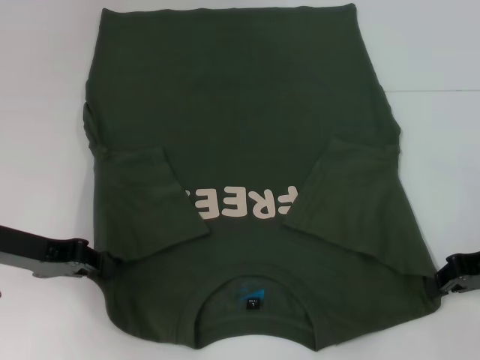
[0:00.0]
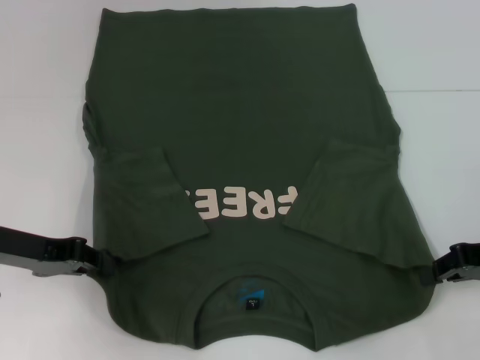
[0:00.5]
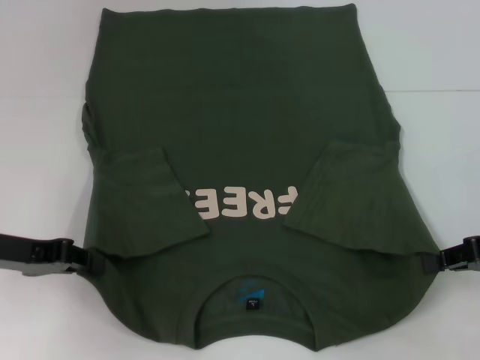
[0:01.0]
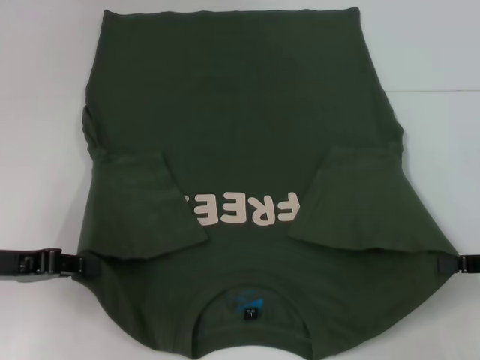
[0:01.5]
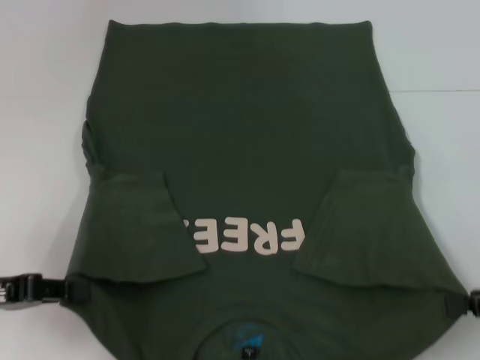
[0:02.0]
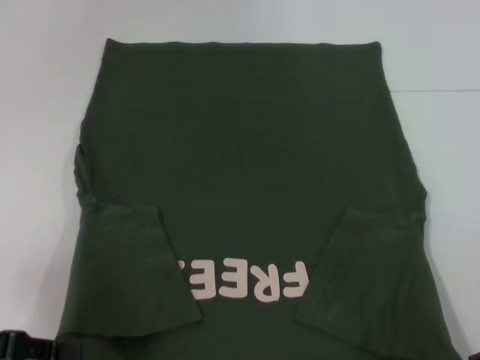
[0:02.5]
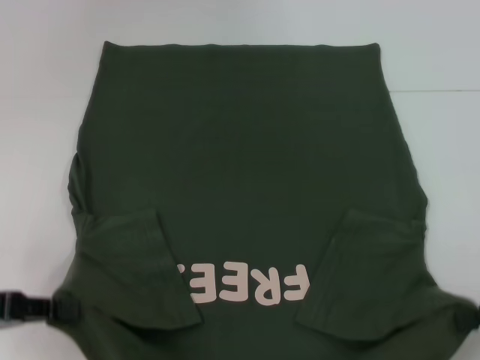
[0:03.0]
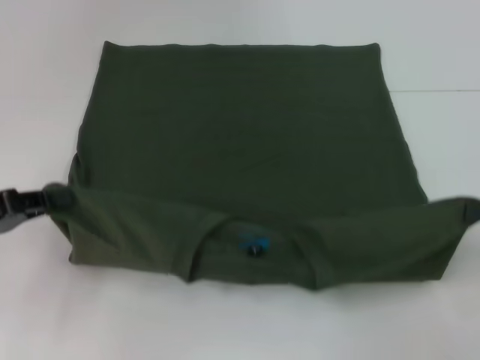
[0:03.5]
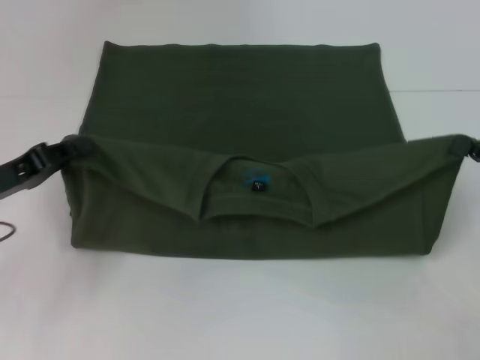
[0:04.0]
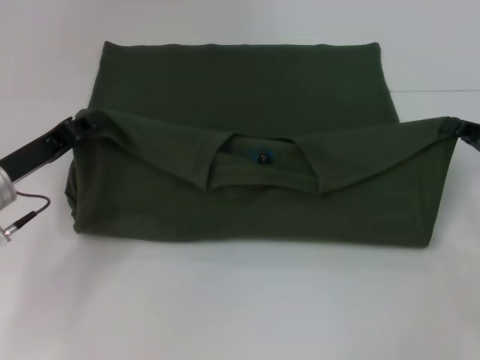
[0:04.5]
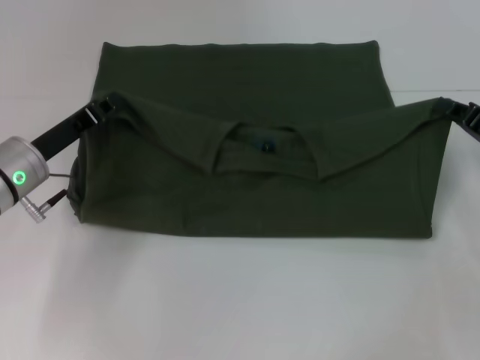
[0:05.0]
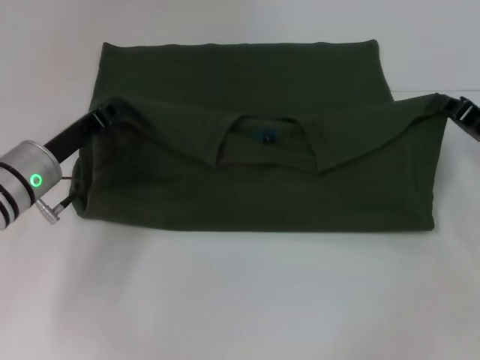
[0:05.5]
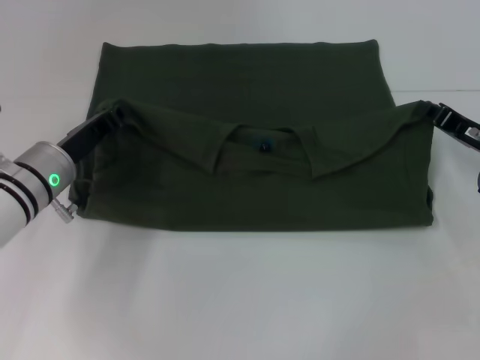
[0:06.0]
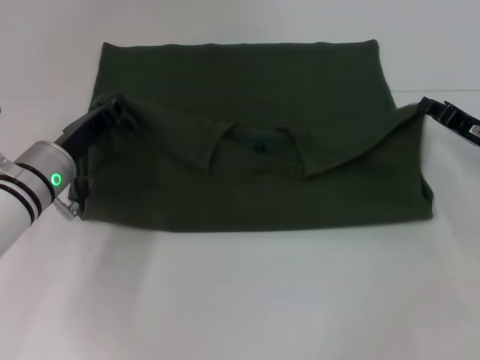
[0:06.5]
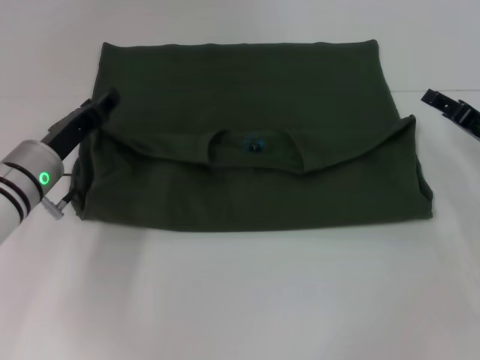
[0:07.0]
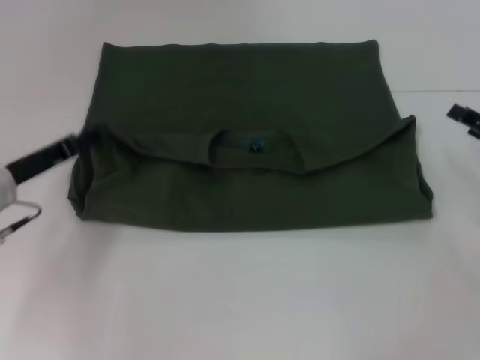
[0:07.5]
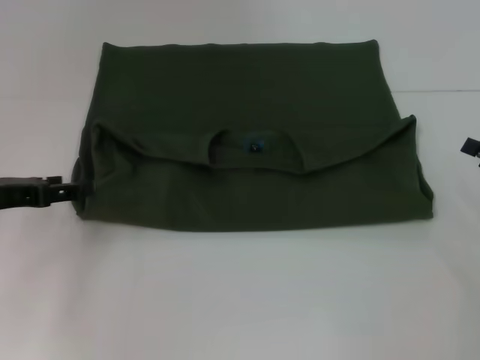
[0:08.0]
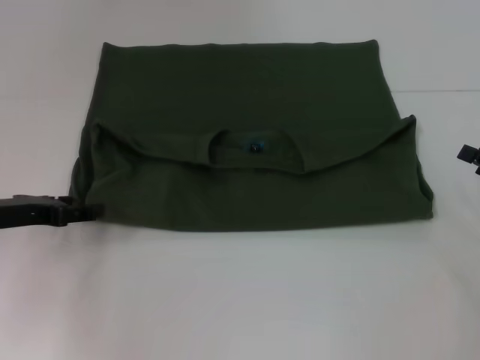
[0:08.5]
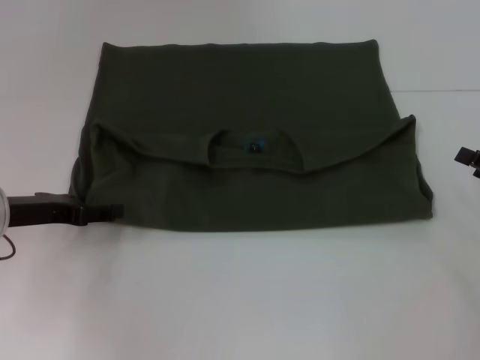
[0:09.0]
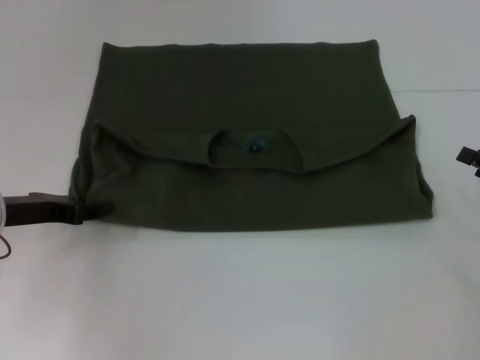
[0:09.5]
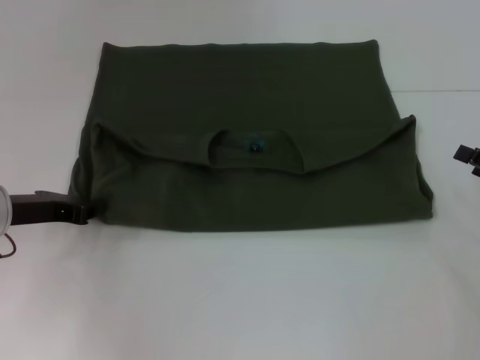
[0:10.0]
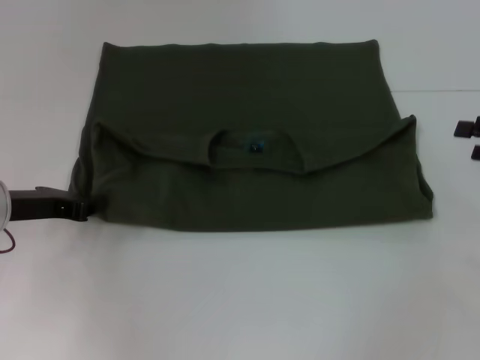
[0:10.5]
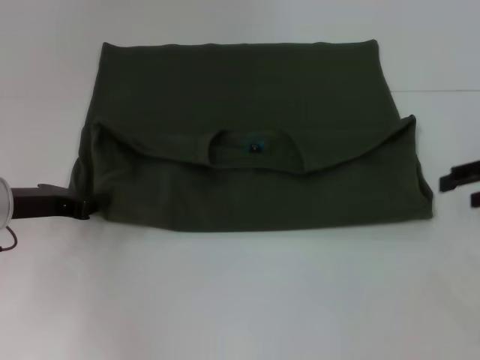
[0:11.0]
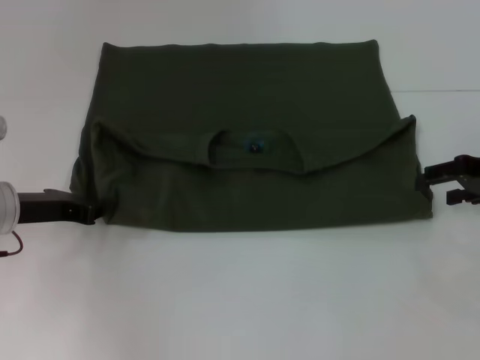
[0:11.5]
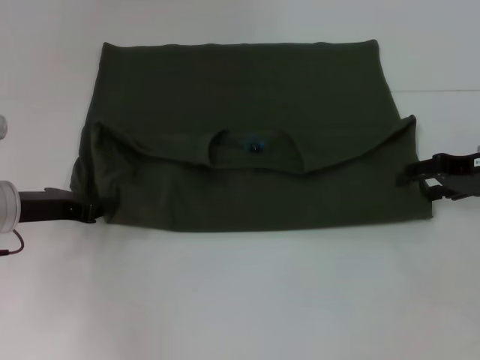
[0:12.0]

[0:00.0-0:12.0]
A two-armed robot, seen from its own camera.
Step, 0:00.5 to 0:06.5: Fold the clothes with your right hand.
0:00.0 to 0:02.0: Both grippers travel together backward, approximately 5 cm.
0:02.0 to 0:04.0: Both grippers travel together forward, approximately 5 cm.
0:04.0 to 0:06.0: The left gripper is displaced to the right and forward by some 10 cm. Meanwhile the right gripper travels forward and to the left by some 10 cm.
0:06.0 to 0:08.0: The left gripper travels to the left, upward and backward by some 10 cm, and opens up, while the right gripper shifts approximately 10 cm to the right and backward, and opens.
0:08.0 to 0:10.0: The left gripper closes up.
0:10.0 to 0:12.0: The right gripper shifts some 10 cm forward, to the left and upward.

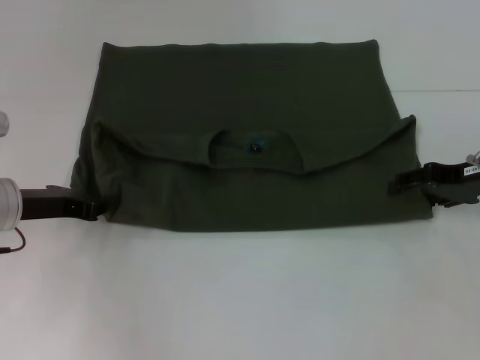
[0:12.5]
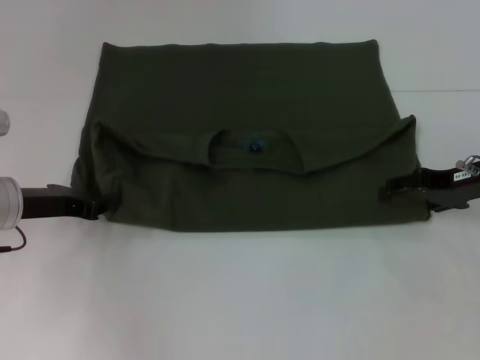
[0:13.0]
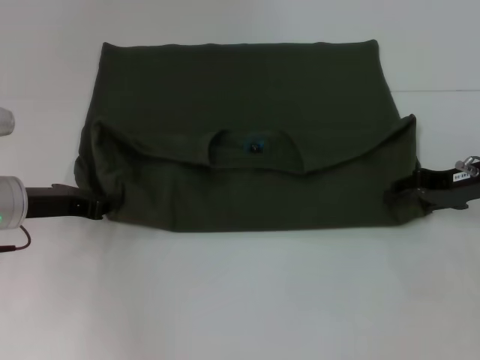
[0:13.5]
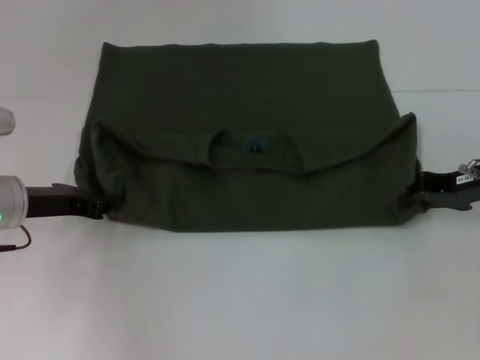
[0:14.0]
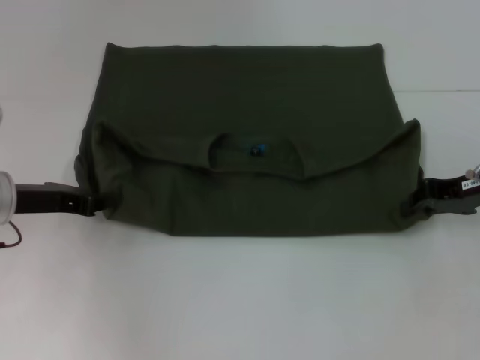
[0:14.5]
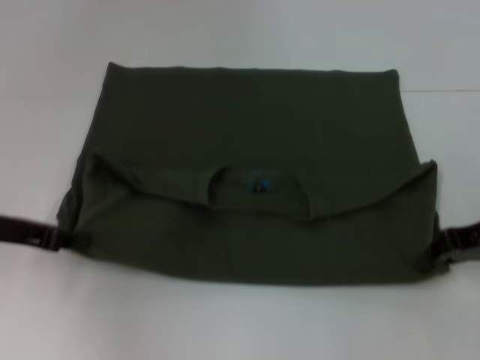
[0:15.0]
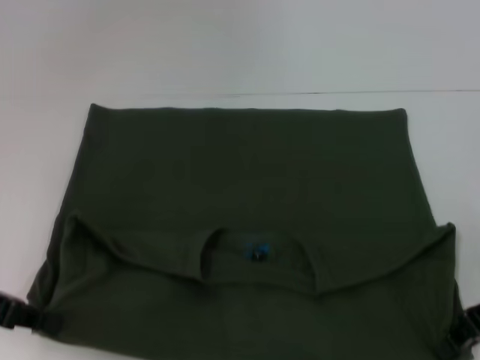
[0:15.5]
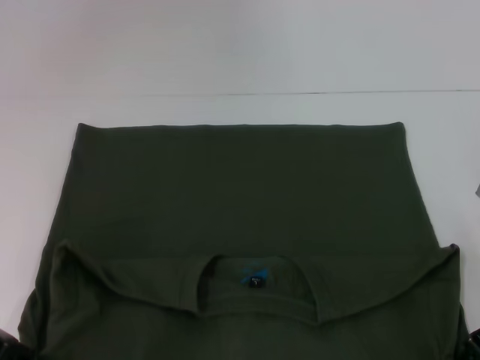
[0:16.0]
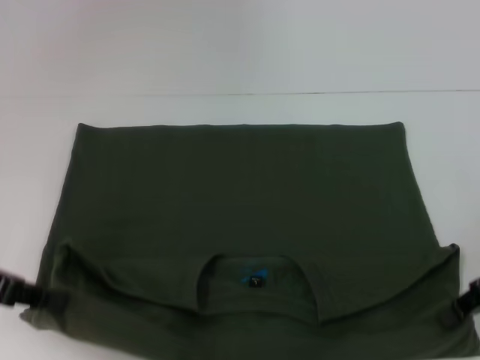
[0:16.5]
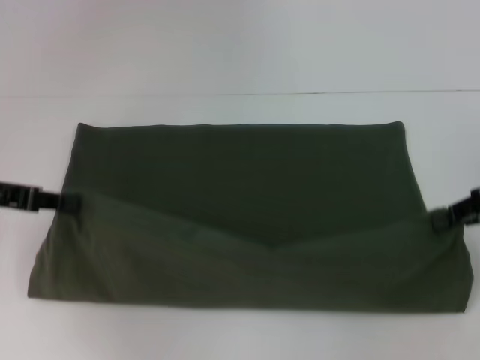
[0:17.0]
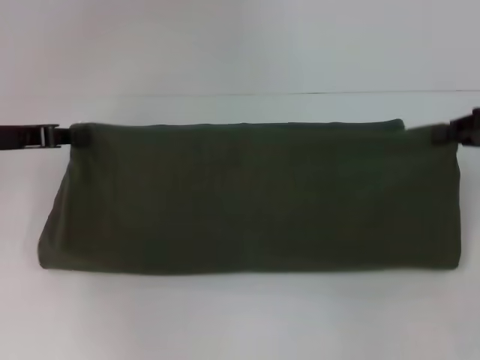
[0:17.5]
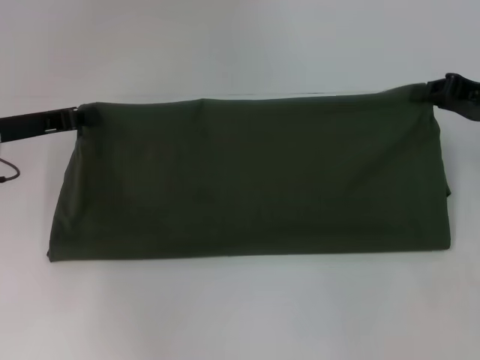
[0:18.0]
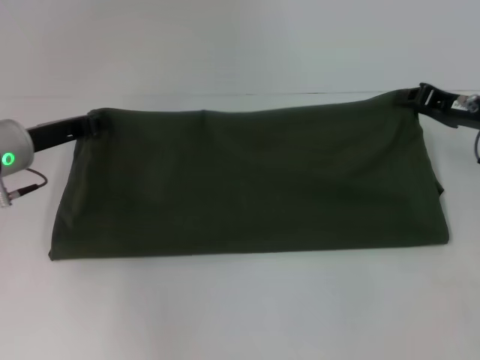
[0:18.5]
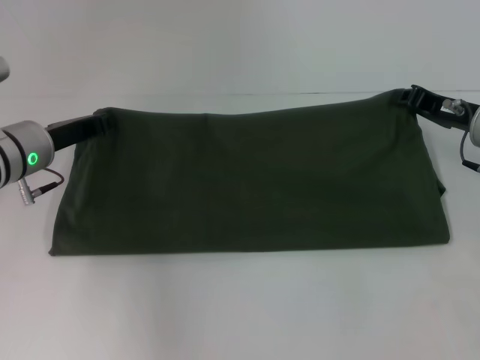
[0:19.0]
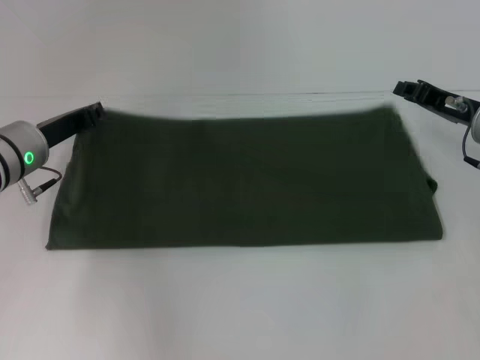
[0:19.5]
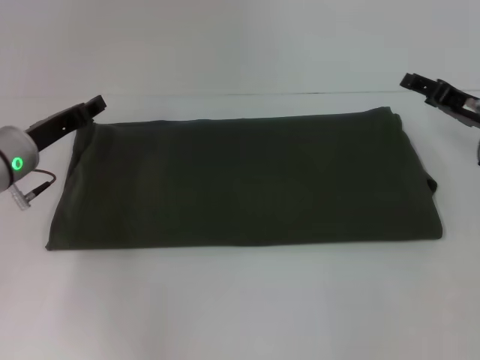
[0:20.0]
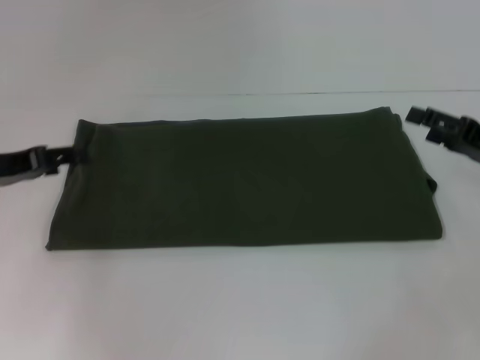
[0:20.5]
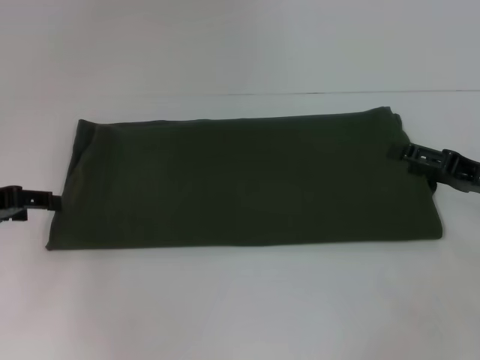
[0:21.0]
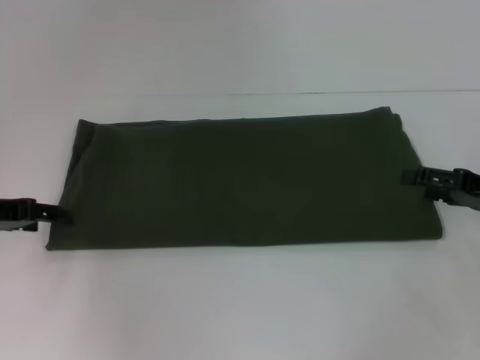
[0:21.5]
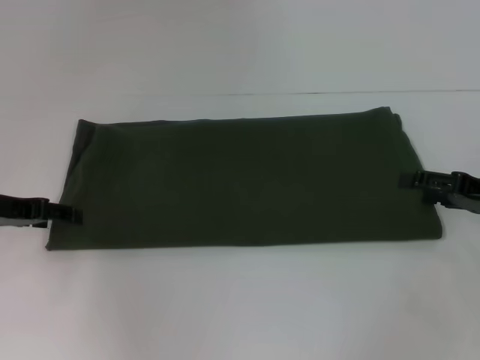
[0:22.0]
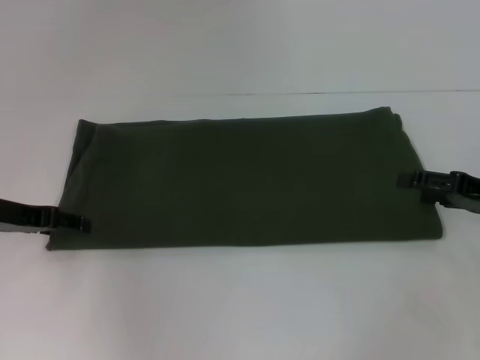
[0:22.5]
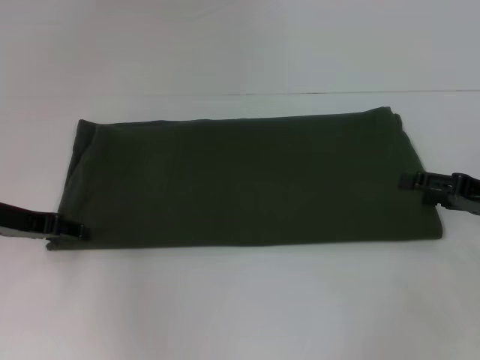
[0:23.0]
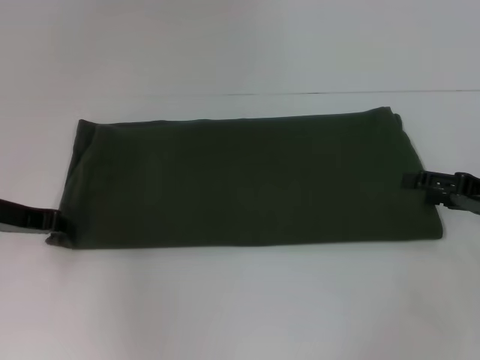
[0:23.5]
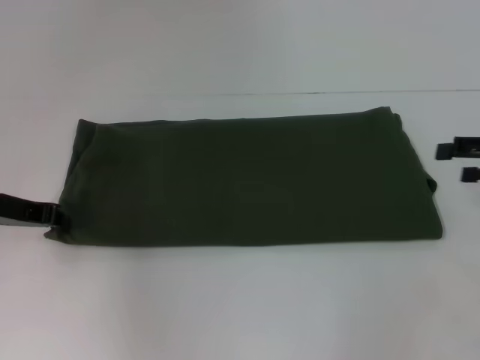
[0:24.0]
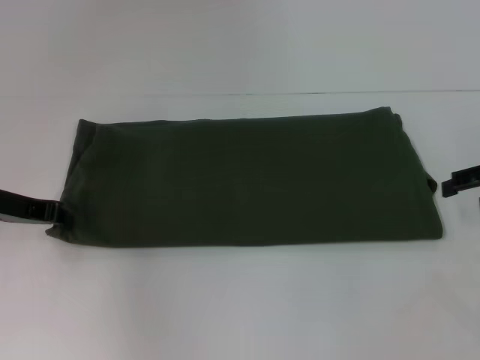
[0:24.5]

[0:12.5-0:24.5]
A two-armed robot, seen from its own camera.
Step, 0:12.5 to 0:16.0: Pull the clothes with your left hand.
Step, 0:12.5 to 0:16.0: Pull the clothes with your right hand.
Step, 0:16.5 to 0:19.5: Fold the clothes with your left hand.
Step, 0:16.5 to 0:19.5: Fold the clothes with your right hand.
0:12.5 to 0:14.5: The right gripper closes.
0:14.5 to 0:16.5: The right gripper heads backward, covering approximately 5 cm; the left gripper moves backward and upward, approximately 10 cm.
0:16.5 to 0:18.5: The right gripper travels forward by some 10 cm. The left gripper moves forward and to the right, some 10 cm.
0:18.5 to 0:20.5: The left gripper shifts about 5 cm to the left, and opens. Meanwhile the right gripper moves backward, roughly 5 cm, and opens its fingers.
0:22.5 to 0:24.5: The right gripper heads upward, covering some 5 cm, while the left gripper closes up.

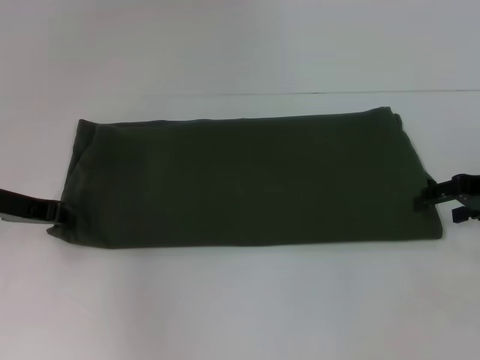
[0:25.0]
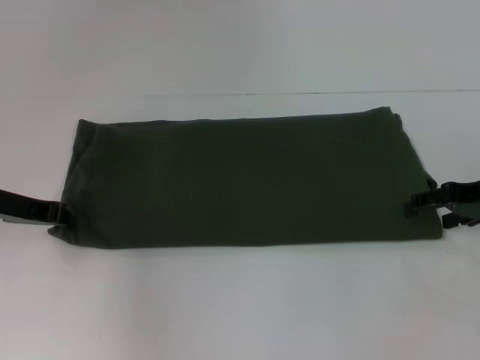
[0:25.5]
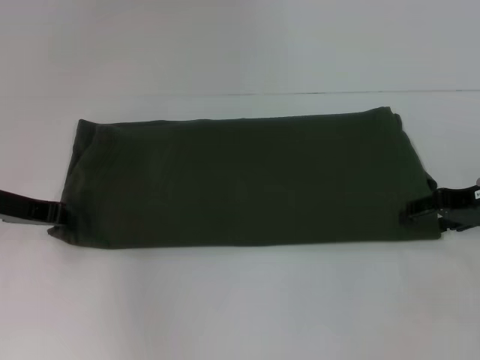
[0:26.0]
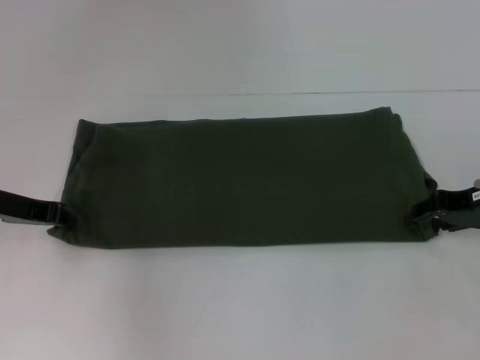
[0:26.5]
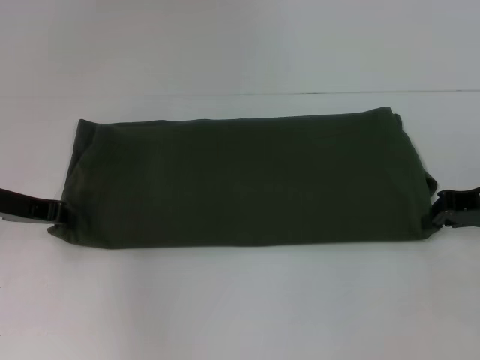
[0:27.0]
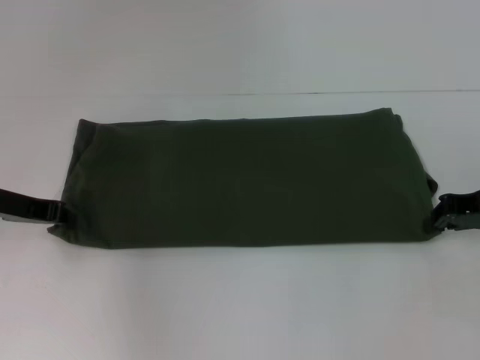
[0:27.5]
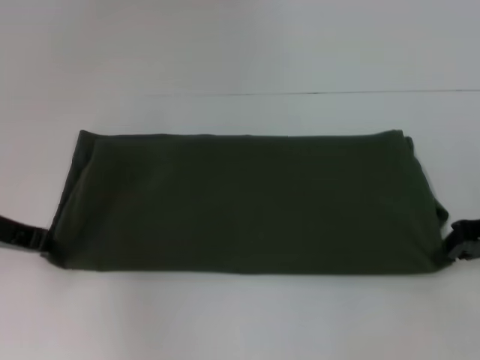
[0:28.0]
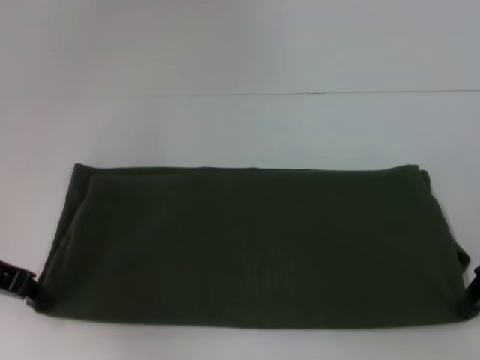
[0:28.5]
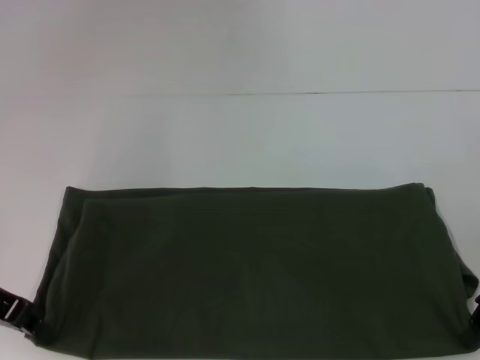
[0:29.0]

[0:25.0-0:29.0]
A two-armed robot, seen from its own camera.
0:25.0 to 0:27.0: The right gripper closes its fingers.
0:27.0 to 0:29.0: The left gripper is displaced backward by roughly 5 cm. Meanwhile the right gripper ends up about 5 cm from where it was.
